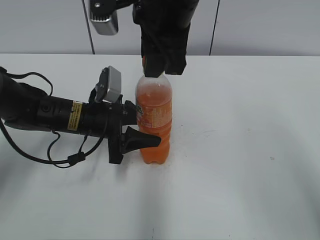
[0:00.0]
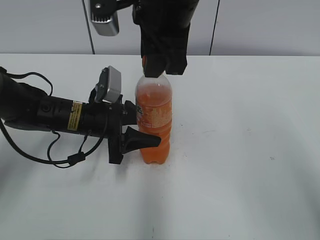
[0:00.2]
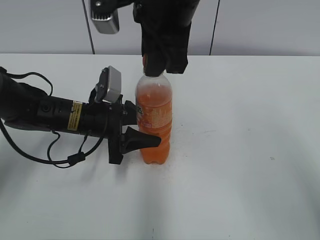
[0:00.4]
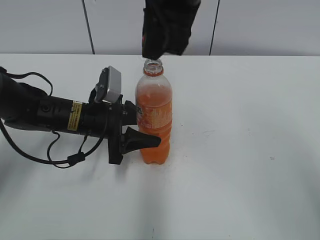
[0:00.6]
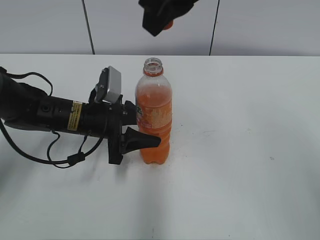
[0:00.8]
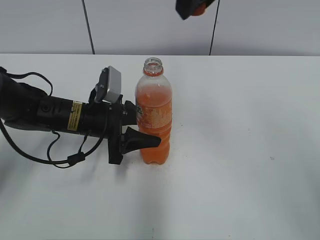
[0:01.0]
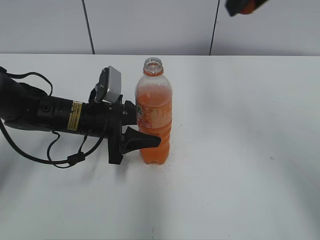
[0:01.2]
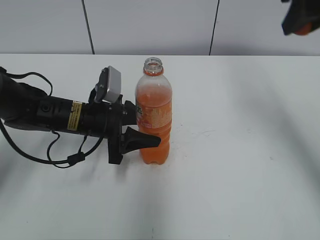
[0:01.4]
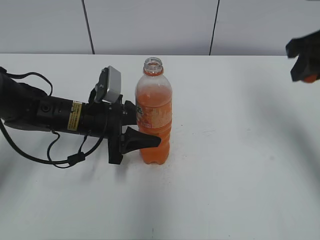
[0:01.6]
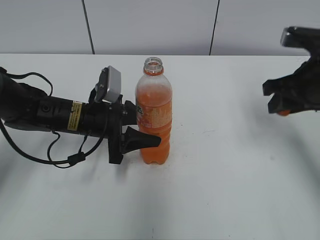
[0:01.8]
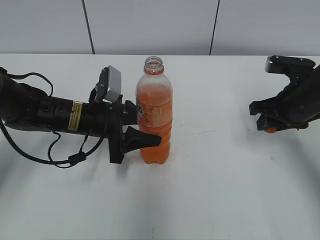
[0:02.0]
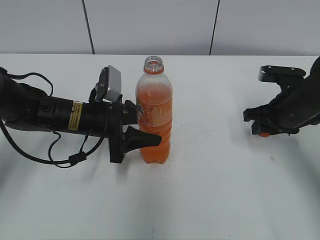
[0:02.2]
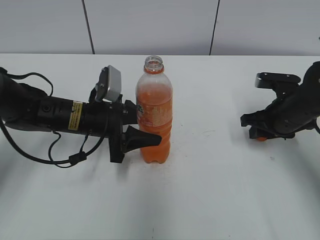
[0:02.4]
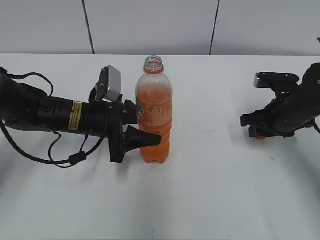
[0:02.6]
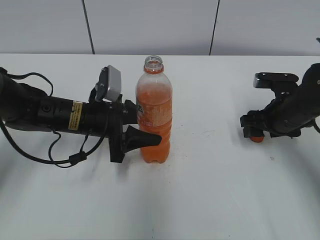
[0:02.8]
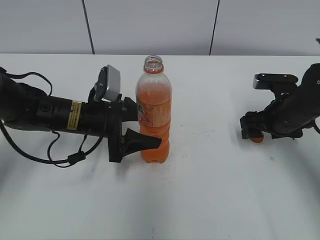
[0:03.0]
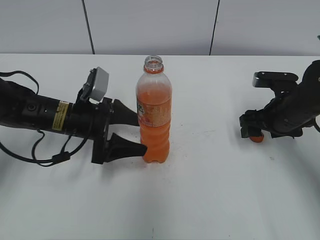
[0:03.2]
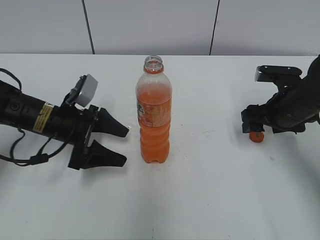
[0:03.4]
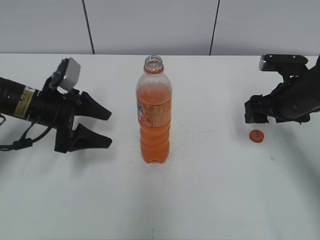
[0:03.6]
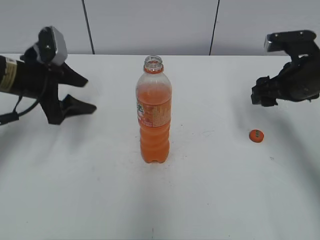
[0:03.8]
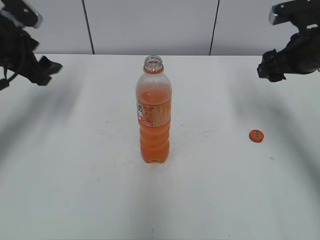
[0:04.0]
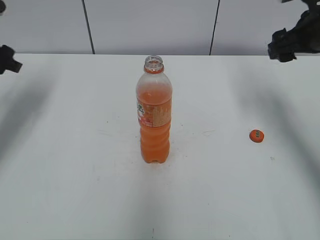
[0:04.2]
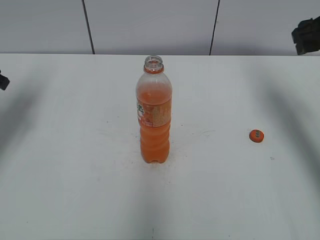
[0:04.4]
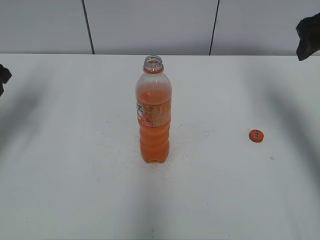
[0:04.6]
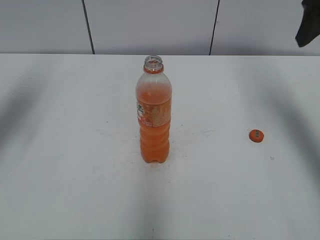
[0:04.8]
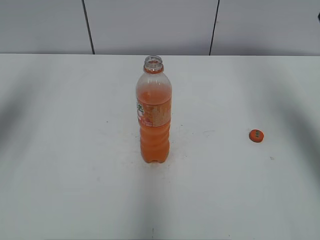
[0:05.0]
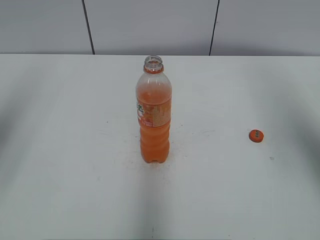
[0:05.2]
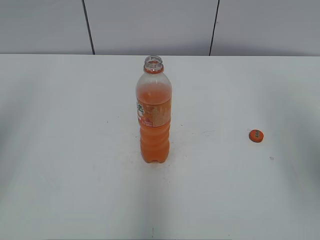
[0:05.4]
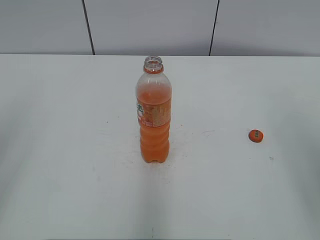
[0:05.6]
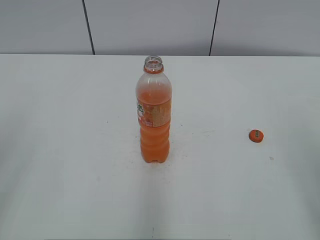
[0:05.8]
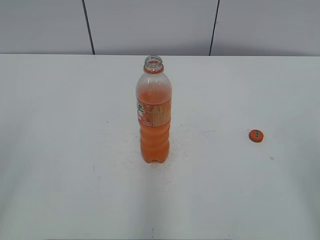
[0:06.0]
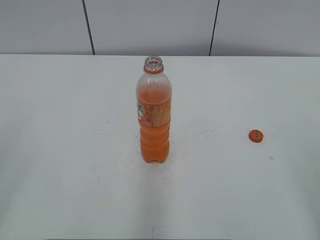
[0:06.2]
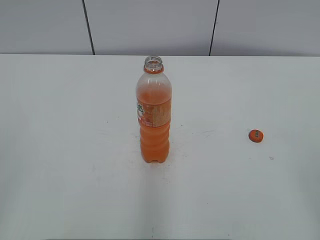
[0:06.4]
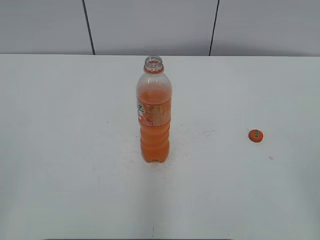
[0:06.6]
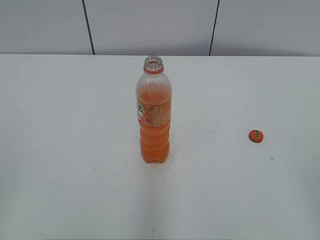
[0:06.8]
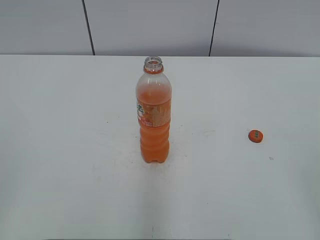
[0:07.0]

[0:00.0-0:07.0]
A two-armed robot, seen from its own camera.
0:00.0 to 0:01.4: The right gripper shifts some 20 cm to the right.
0:01.4 to 0:02.8: The right gripper moves downward, roughly 25 cm, and opens.
0:02.8 to 0:04.2: The left gripper is displaced to the left and upward by roughly 20 cm, and opens. Meanwhile the right gripper travels upward by approximately 15 cm.
0:04.2 to 0:05.6: The right gripper heads backward, covering roughly 25 cm. The left gripper shifts some 30 cm backward and upward.
